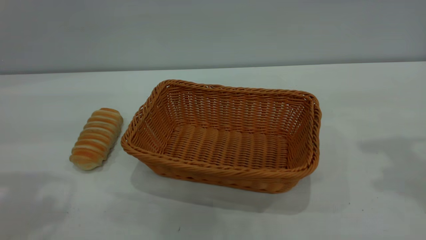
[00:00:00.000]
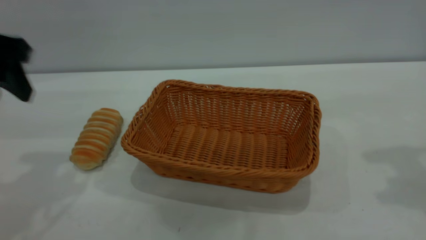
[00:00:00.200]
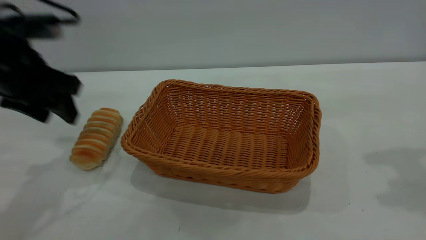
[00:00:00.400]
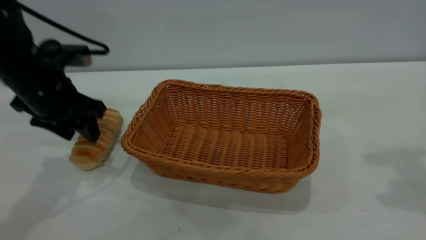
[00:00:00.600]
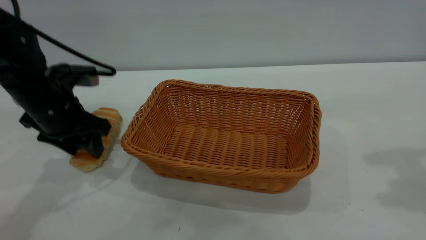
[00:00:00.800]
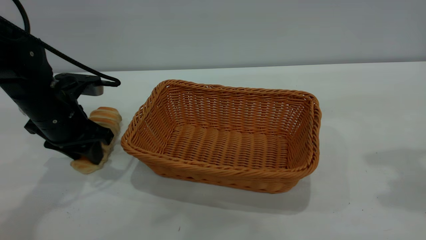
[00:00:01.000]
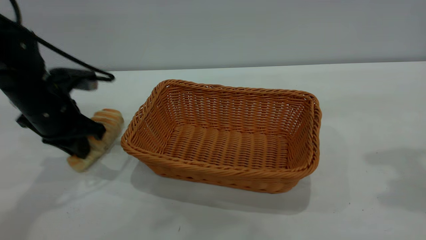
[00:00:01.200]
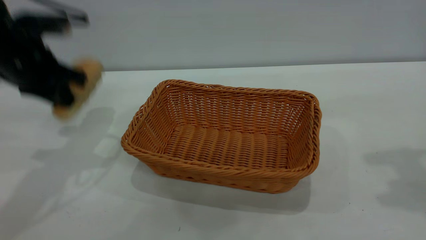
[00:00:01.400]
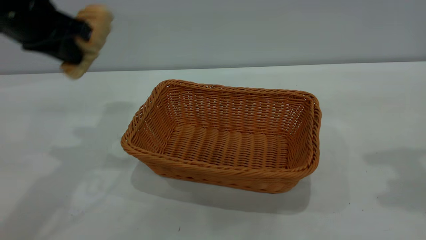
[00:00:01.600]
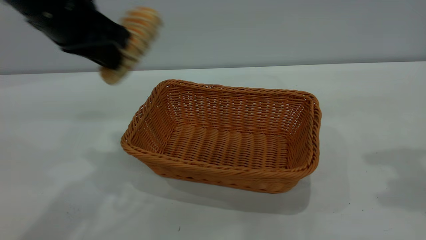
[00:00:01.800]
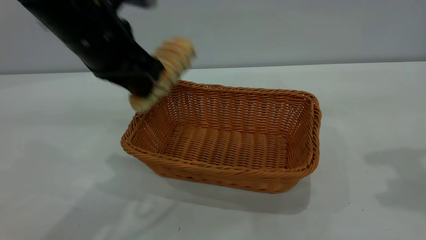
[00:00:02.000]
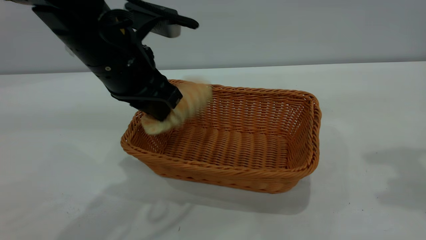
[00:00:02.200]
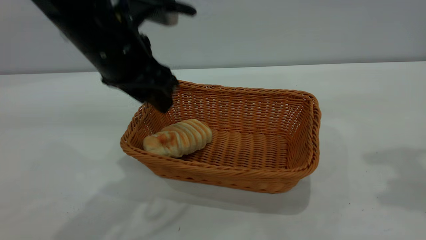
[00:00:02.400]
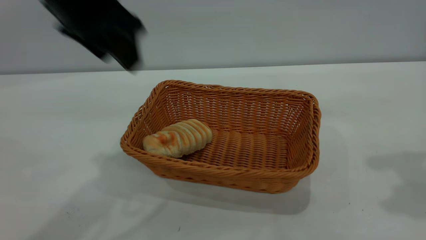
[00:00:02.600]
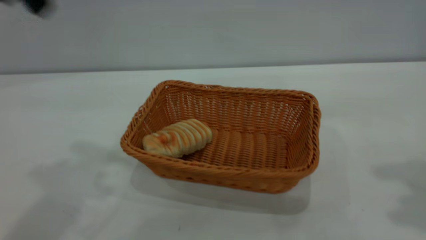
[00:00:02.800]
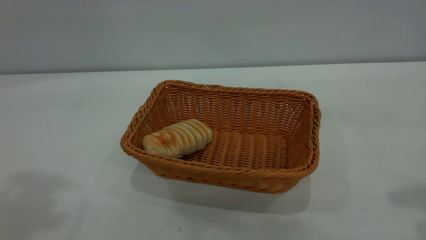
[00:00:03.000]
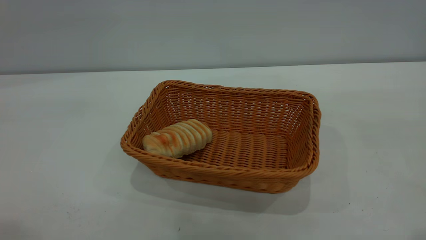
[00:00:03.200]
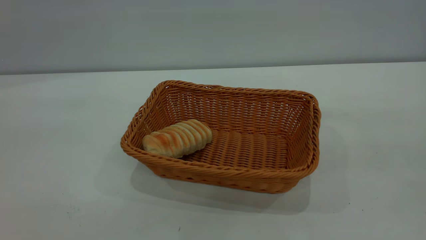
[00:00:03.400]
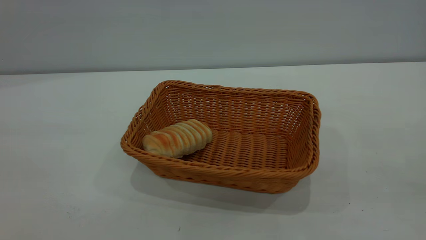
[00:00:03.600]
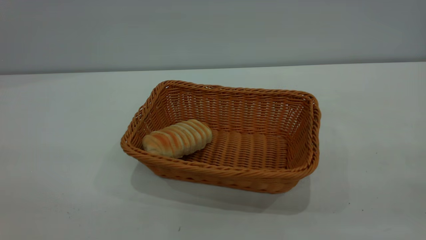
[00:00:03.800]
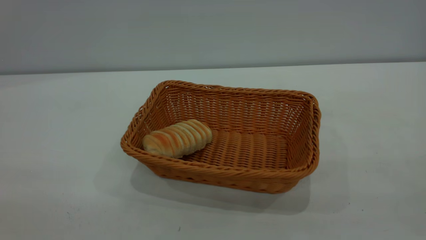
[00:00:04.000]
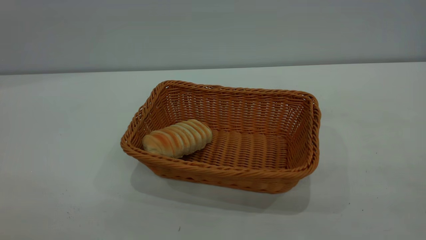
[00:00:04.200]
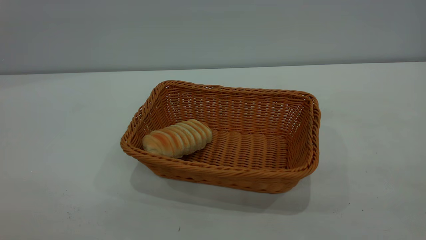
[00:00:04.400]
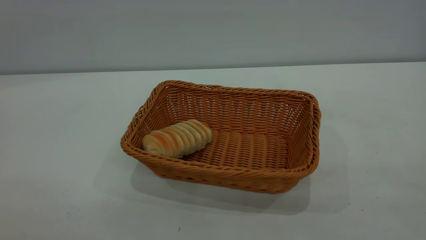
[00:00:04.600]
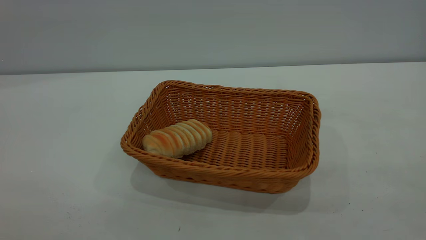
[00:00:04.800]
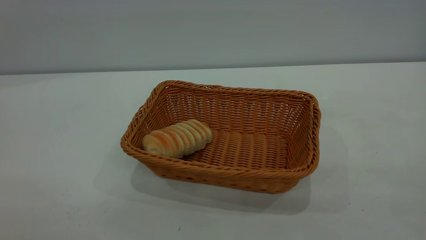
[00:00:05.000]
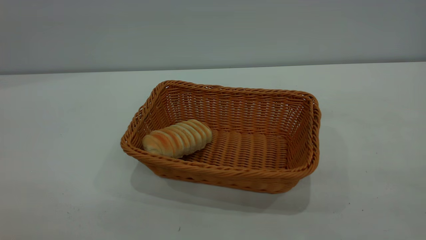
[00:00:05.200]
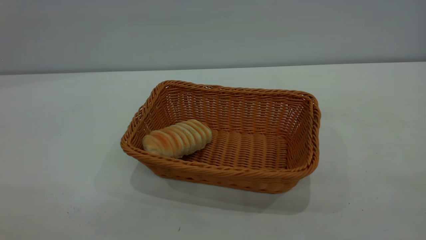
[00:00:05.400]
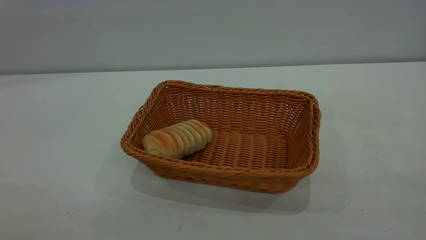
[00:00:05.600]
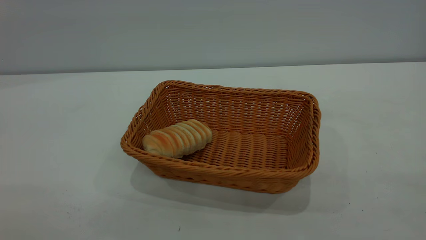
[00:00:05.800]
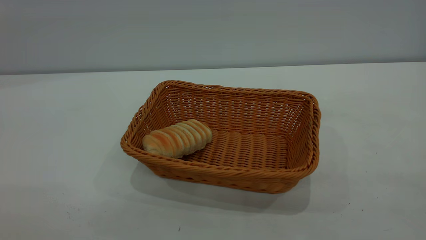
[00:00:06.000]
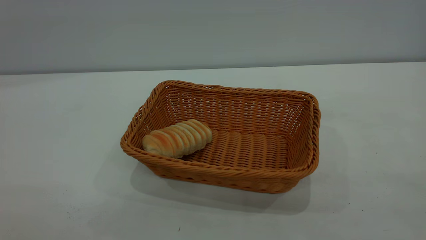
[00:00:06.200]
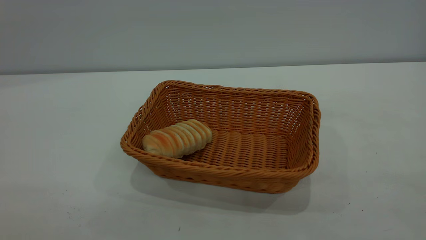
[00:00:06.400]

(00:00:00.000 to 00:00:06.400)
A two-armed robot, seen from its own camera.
Task of the whole recording: One hand grasps the yellow basket and places it in the middle of the table, while the other hand picks up the long bread and puts it into the yellow basket.
Step, 00:00:01.600 - 00:00:02.400: place the bread into the basket.
00:00:00.000 - 00:00:01.600: The left gripper is displaced forward and to the right by approximately 10 cm, travels downward and back again, some 20 cm each way, and closes its fingers.
00:00:01.600 - 00:00:03.200: The left gripper is displaced upward and backward by some 30 cm, and opens. The right gripper goes roughly 15 cm backward.

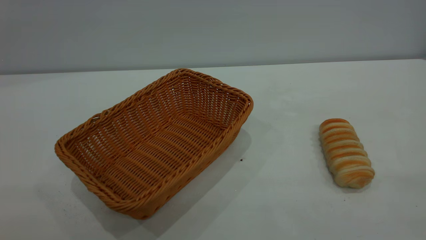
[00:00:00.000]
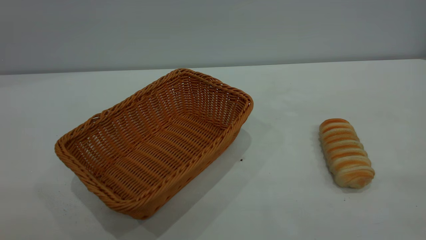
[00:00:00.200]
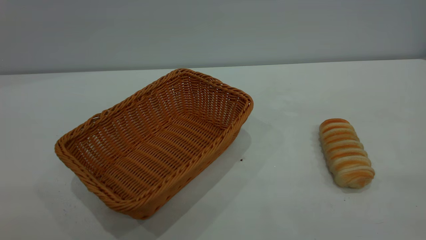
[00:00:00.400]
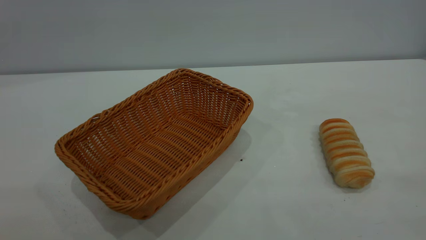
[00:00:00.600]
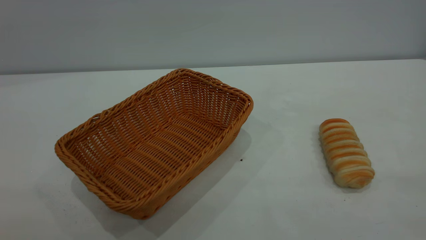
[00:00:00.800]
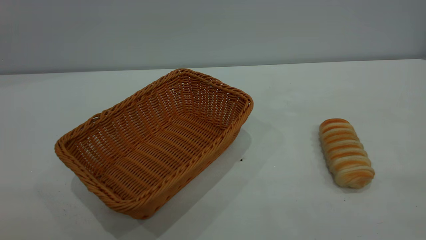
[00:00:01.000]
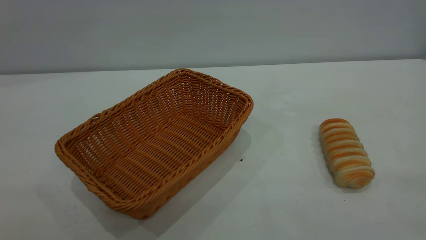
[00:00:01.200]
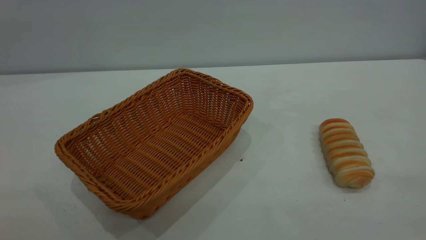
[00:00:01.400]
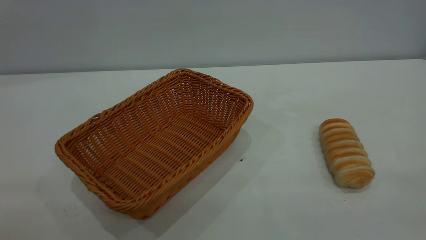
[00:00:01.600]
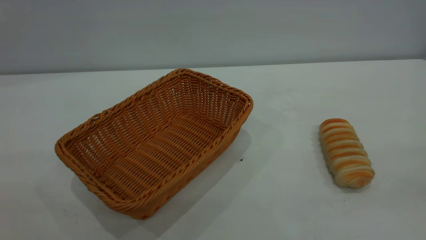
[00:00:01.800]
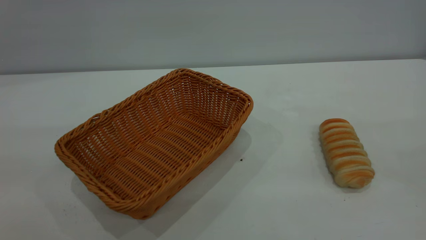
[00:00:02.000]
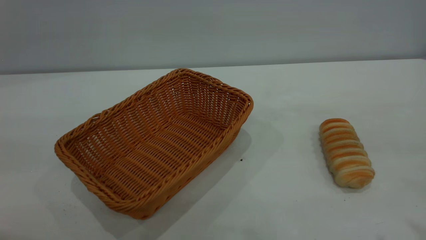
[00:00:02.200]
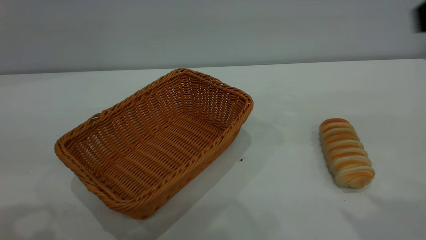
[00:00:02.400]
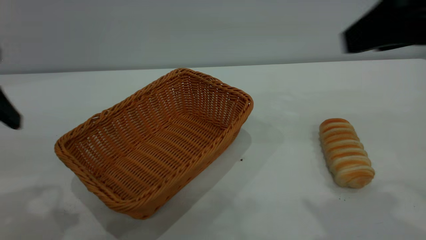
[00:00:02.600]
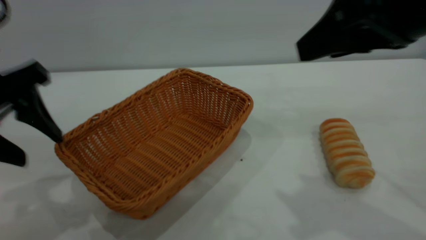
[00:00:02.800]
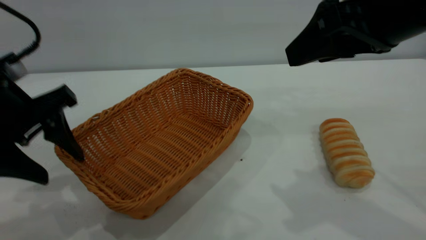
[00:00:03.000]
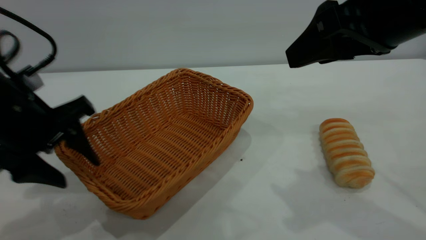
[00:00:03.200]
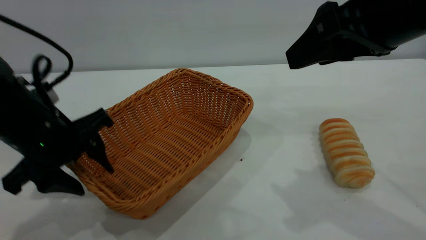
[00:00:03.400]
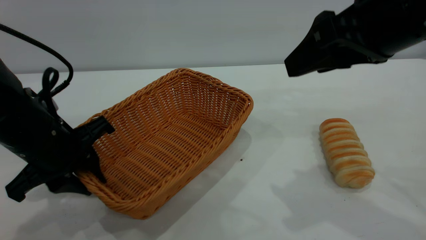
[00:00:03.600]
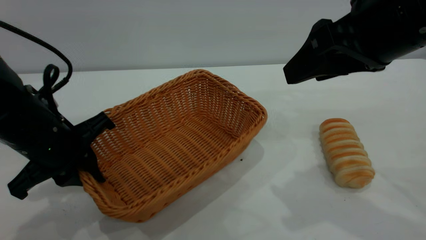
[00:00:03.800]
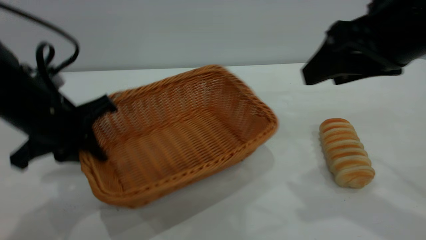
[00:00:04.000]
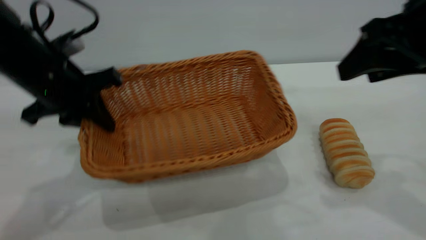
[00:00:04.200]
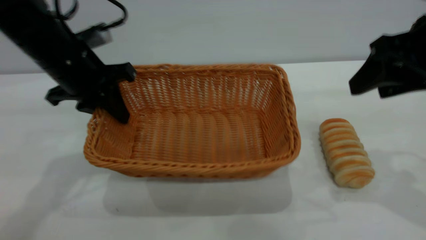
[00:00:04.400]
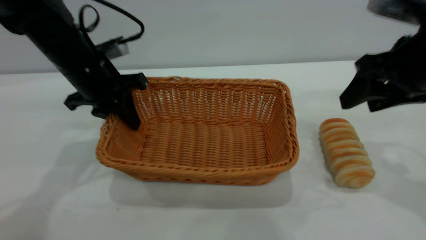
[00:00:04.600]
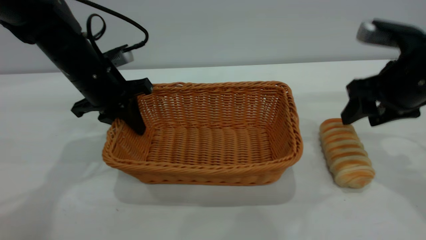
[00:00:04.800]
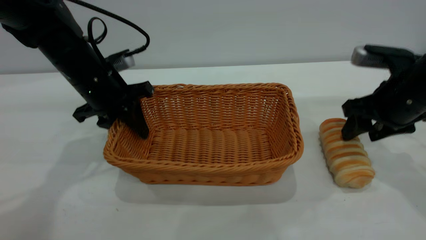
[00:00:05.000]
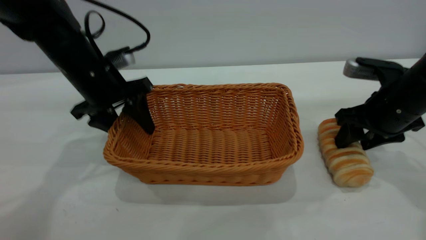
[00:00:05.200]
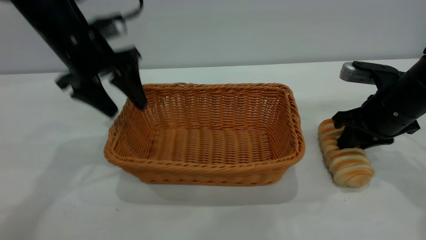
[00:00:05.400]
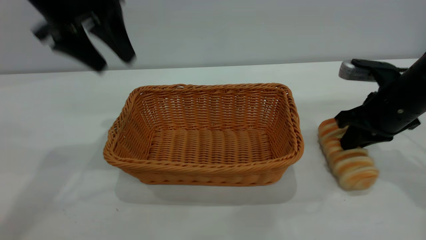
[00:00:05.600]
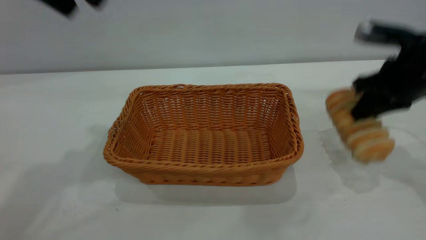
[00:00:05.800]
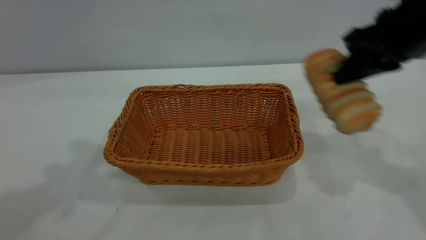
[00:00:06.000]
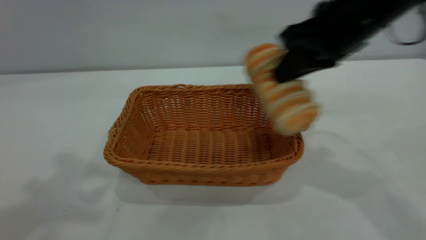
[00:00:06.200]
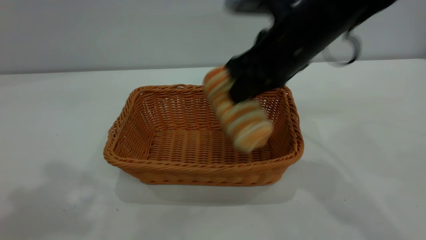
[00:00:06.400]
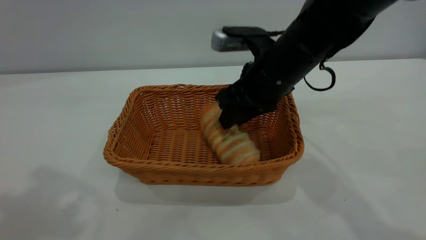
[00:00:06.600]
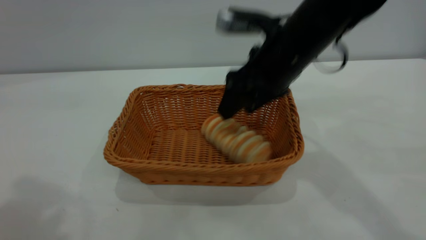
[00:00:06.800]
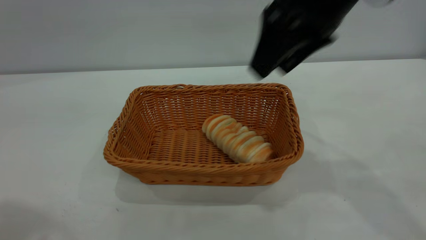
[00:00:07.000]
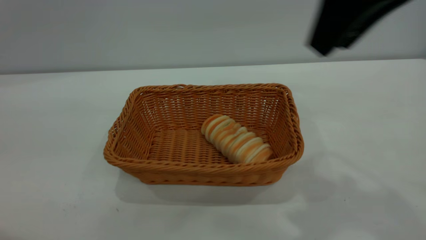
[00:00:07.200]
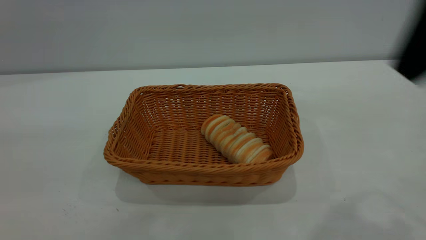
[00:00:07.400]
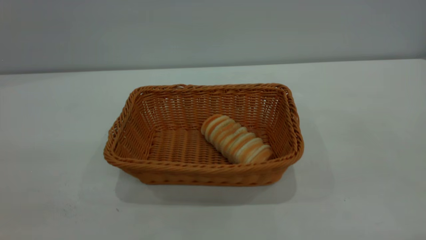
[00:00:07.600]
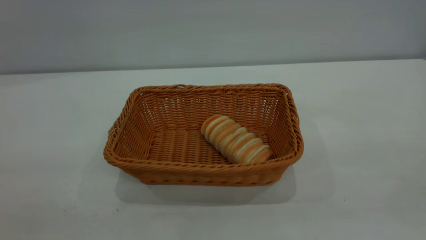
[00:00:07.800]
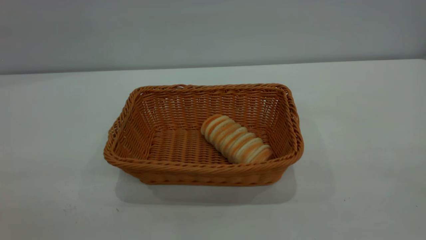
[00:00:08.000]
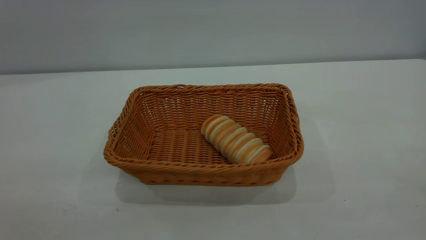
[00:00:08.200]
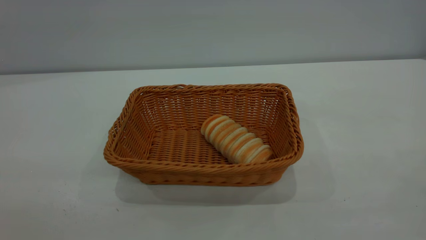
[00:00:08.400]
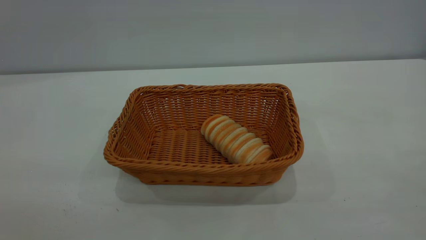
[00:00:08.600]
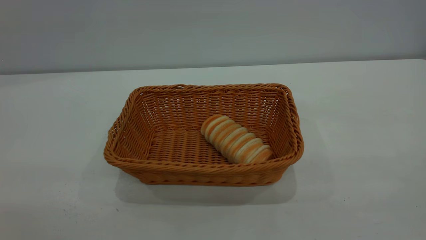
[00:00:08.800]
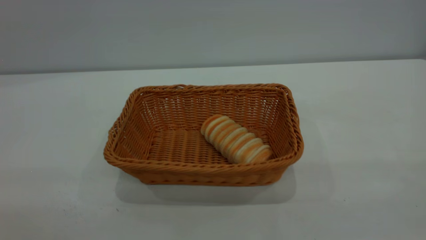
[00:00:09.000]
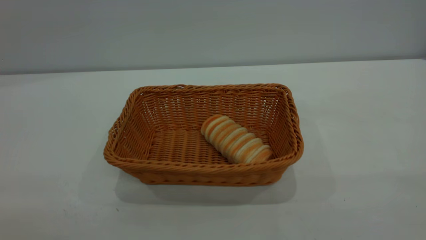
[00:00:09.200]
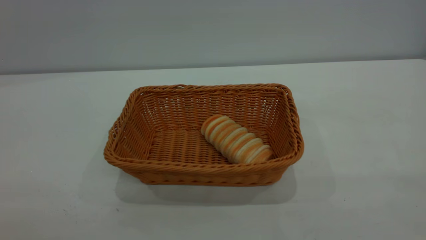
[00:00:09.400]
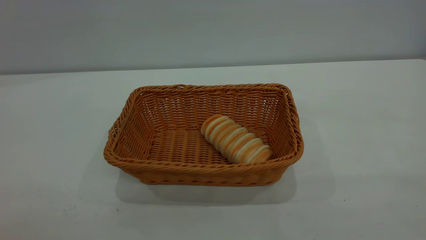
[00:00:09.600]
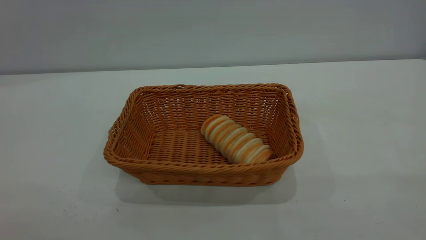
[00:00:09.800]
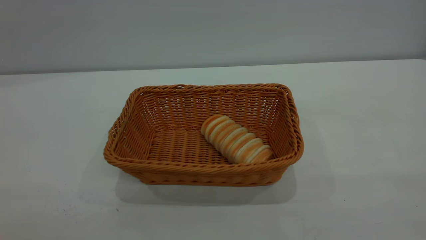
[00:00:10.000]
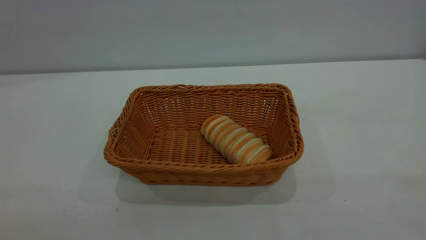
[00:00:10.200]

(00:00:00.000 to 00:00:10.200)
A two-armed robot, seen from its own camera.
Task of the whole recording: One hand grasps the yellow basket and places it in the middle of the table, while the other hand picks up the long bread and puts it into the yellow basket.
Step, 00:00:00.000 - 00:00:05.400: Move the basket to the center of view.
Step, 00:00:06.000 - 00:00:06.800: place the bread into the basket.
00:00:00.000 - 00:00:01.400: Neither gripper changes place.
00:00:01.400 - 00:00:03.000: The right gripper shifts some 30 cm forward and to the left, and opens up. Meanwhile the left gripper shifts about 30 cm forward and downward.
00:00:03.000 - 00:00:04.400: The right gripper is displaced to the right and downward by approximately 10 cm. The left gripper moves forward, approximately 15 cm, and closes.
00:00:04.400 - 00:00:05.800: The right gripper moves forward, roughly 5 cm, reaches some 15 cm downward, then returns, and closes, while the left gripper goes about 20 cm upward, and opens up.
00:00:05.800 - 00:00:07.200: The right gripper swings up and down, about 20 cm each way, with 2 reversals, and opens, while the left gripper travels backward by approximately 20 cm.
00:00:07.200 - 00:00:08.800: The right gripper heads backward and to the right, covering approximately 25 cm.
